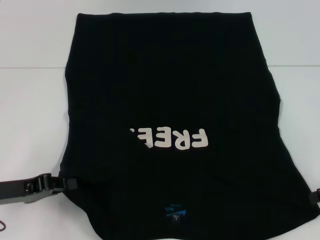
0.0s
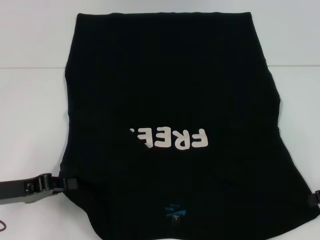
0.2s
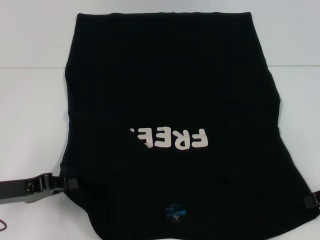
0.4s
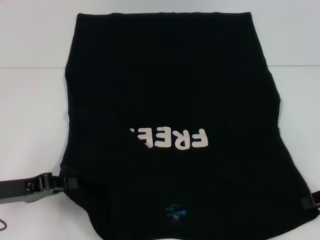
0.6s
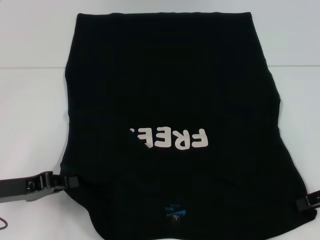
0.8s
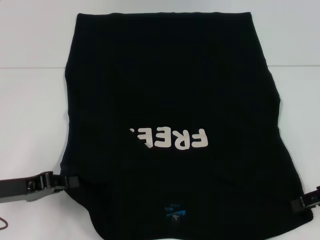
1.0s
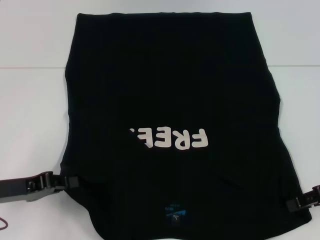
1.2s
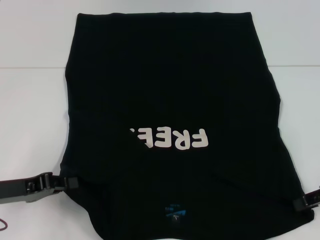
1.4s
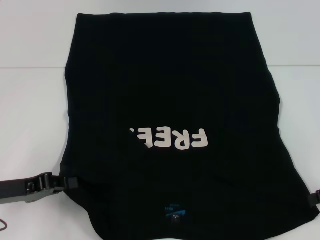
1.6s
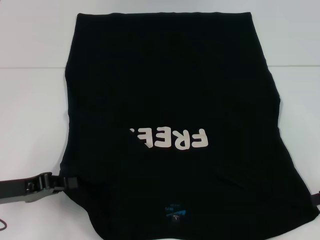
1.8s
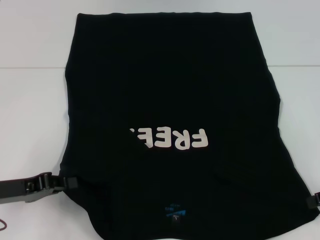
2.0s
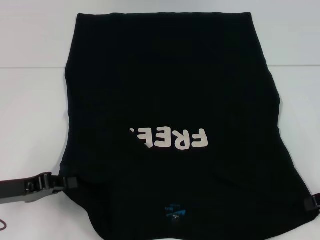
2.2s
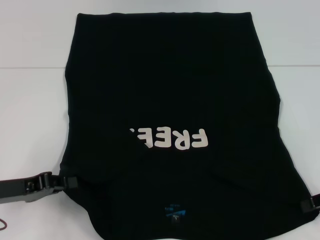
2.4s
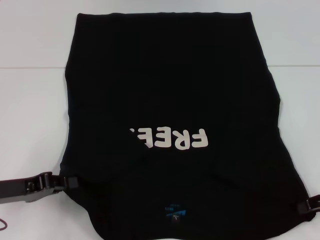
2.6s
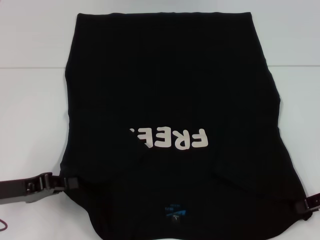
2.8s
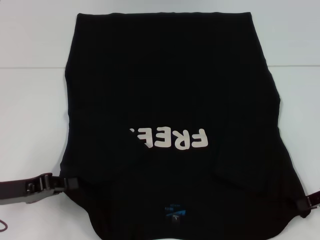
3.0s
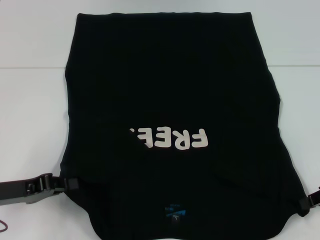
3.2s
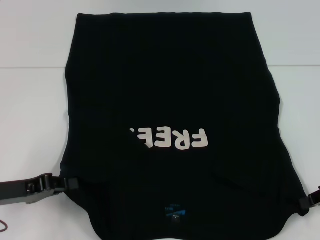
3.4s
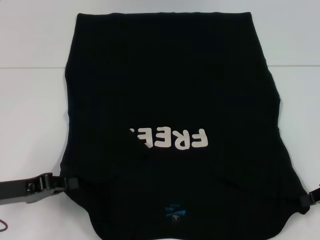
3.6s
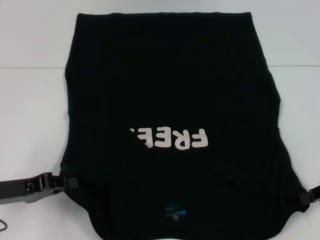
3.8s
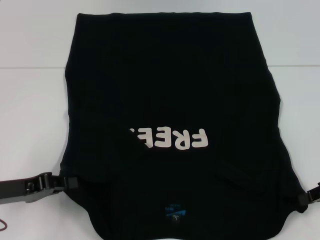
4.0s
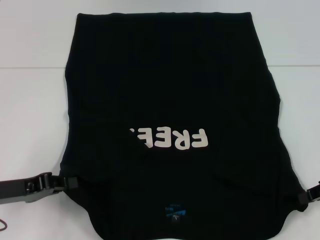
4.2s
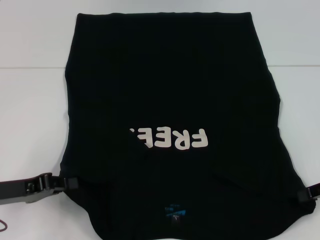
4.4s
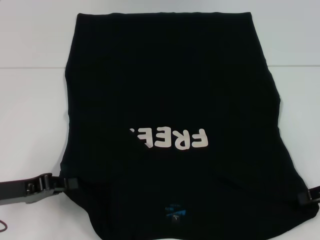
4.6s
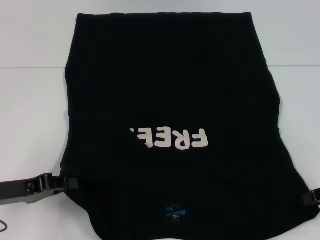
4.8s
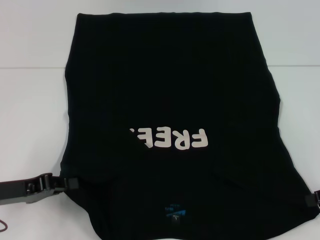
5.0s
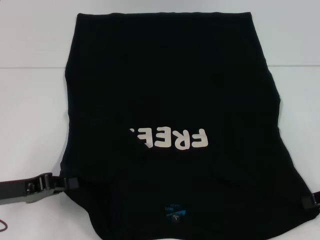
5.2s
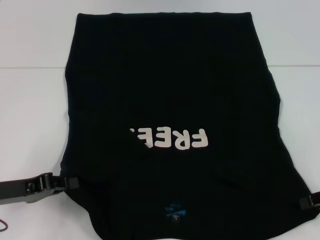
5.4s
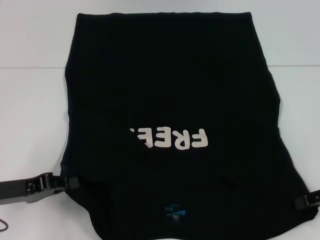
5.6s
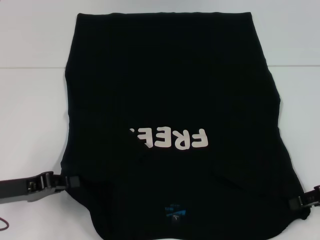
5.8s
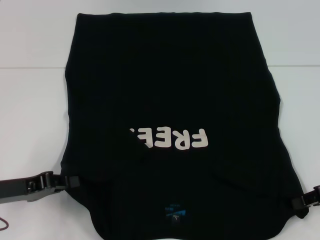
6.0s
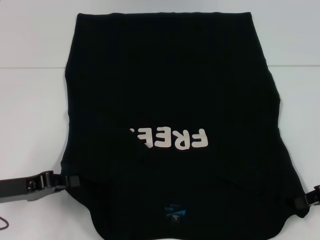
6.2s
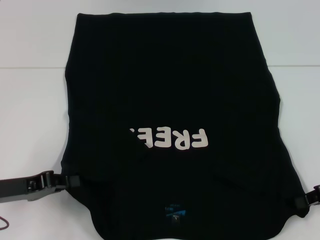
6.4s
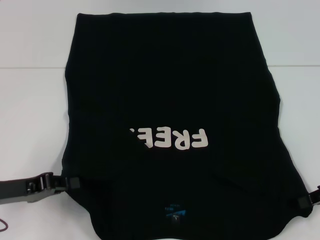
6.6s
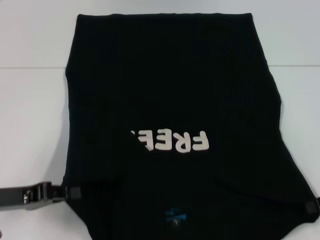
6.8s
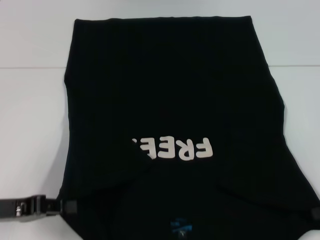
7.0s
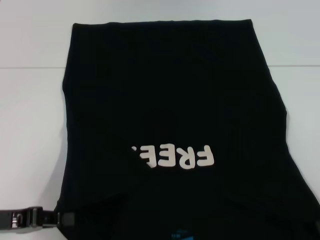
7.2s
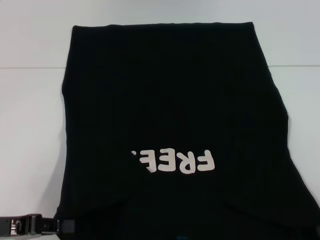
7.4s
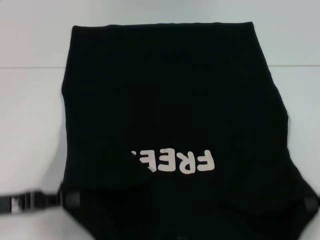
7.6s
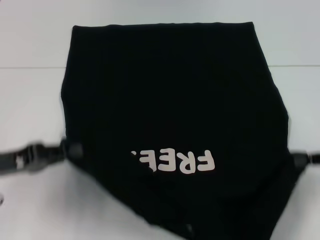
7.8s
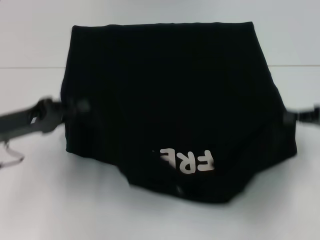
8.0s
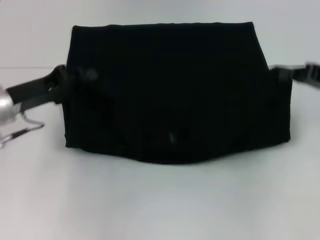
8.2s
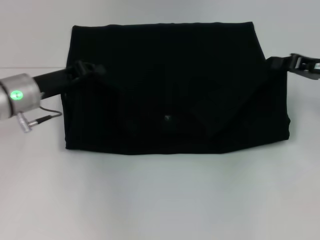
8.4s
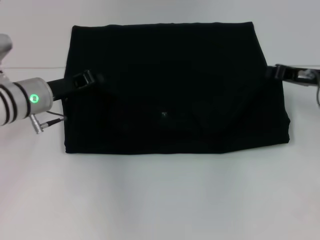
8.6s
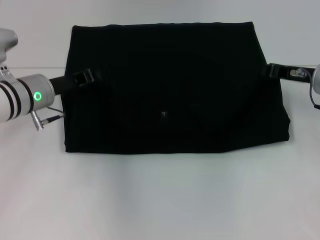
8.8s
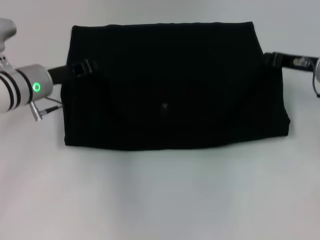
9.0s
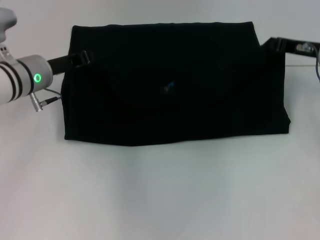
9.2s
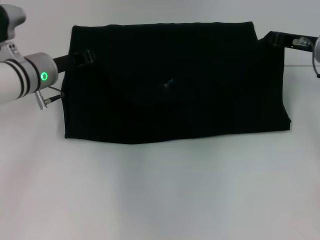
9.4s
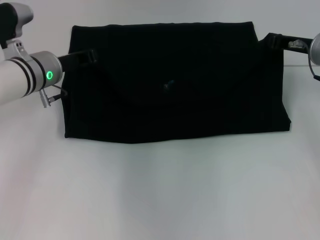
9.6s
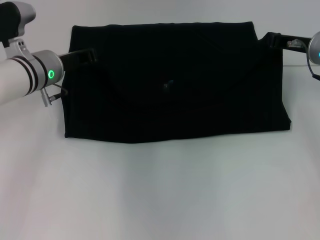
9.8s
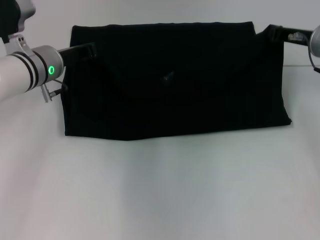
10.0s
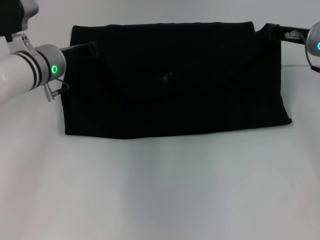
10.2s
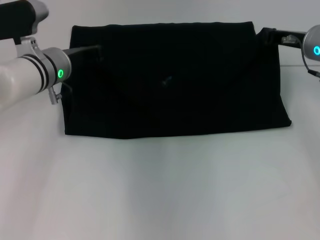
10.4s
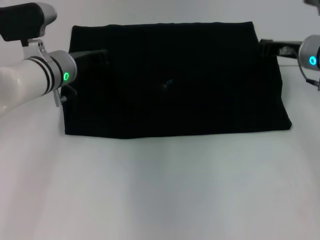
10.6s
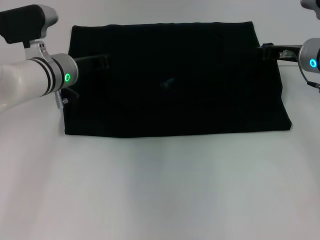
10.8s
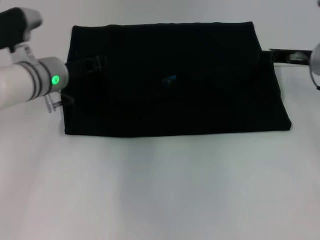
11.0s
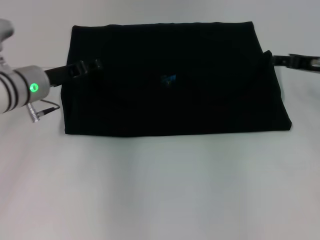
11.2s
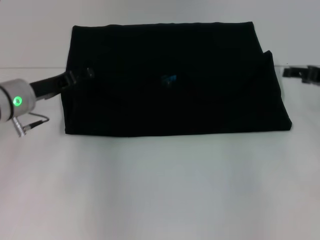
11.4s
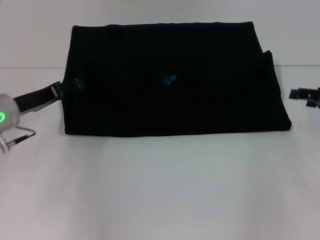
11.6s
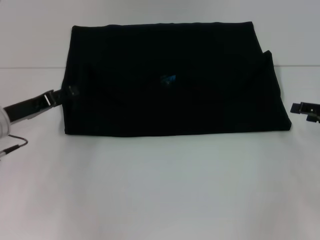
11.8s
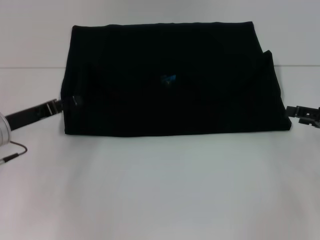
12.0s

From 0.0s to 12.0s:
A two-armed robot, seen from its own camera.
Step, from 0.0s to 3.4s: Grab the bottom right corner with your right hand.
Step, from 3.6s to 11.0s: Fold the clothes with your left hand.
Step, from 3.6s to 11.0s: Fold the clothes with your right hand.
From 1.6s to 3.0s: The grippers move only a little.
From 3.0s to 4.4s: Neither gripper changes place.
From 4.4s to 6.0s: The grippers move only a little.
From 6.0s to 7.6s: The right gripper closes.
From 7.6s to 9.0s: The left gripper is displaced forward and to the right by some 20 cm; the right gripper is displaced forward and to the left by about 20 cm.
From 9.0s to 10.4s: The grippers make only small movements.
From 10.4s to 12.0s: The right gripper shifts roughly 15 cm backward and to the right, and opens. Meanwhile the left gripper moves backward and to the left, about 15 cm, and opens its fingers.

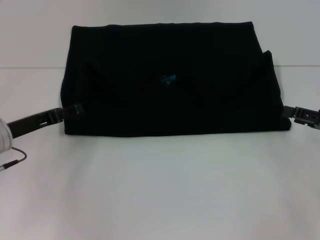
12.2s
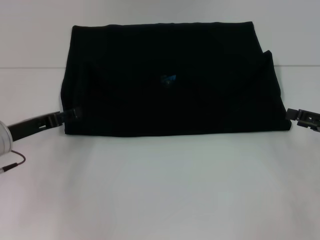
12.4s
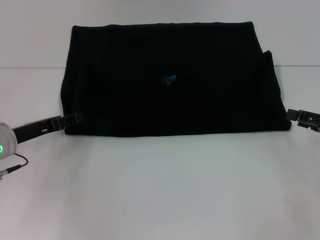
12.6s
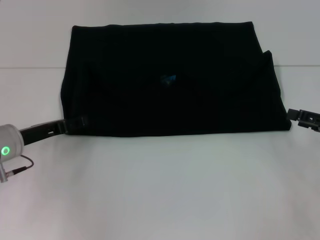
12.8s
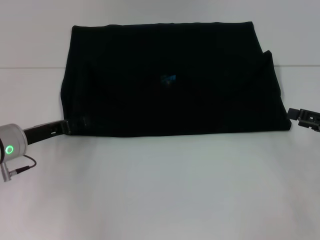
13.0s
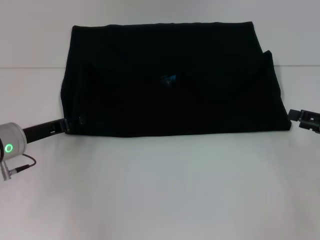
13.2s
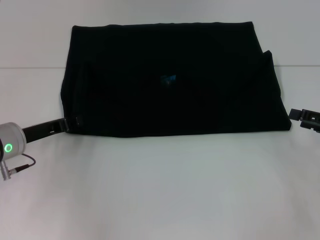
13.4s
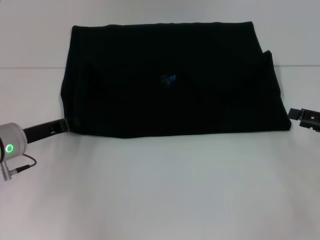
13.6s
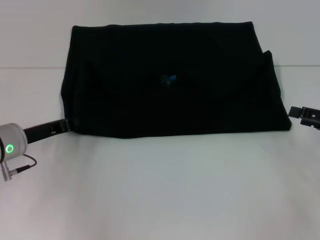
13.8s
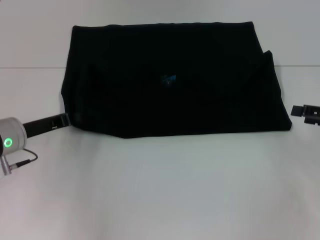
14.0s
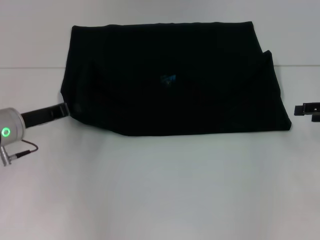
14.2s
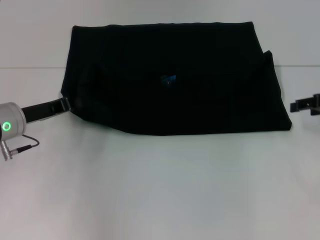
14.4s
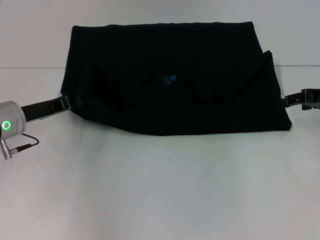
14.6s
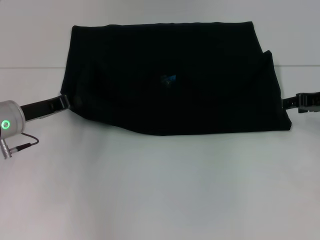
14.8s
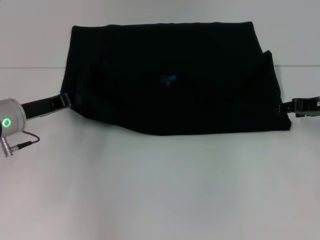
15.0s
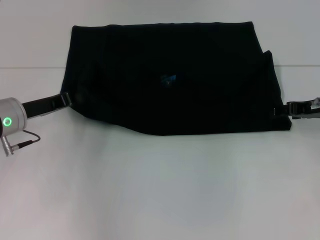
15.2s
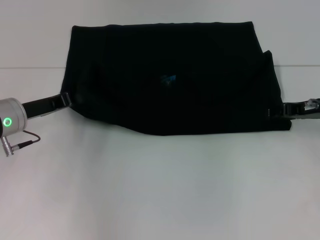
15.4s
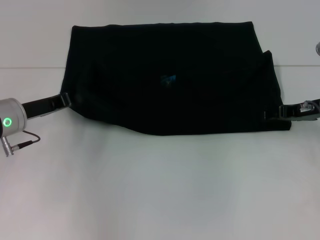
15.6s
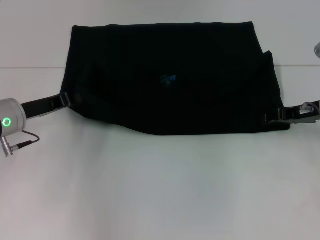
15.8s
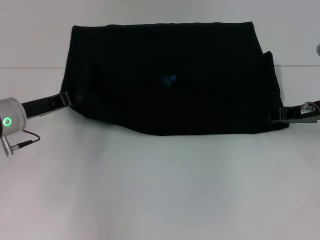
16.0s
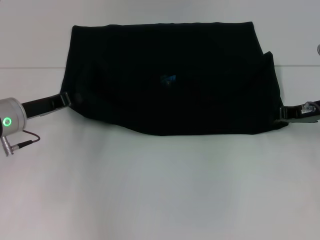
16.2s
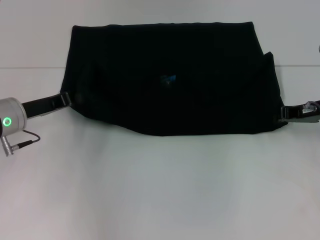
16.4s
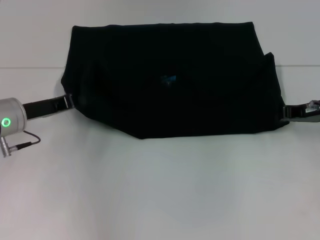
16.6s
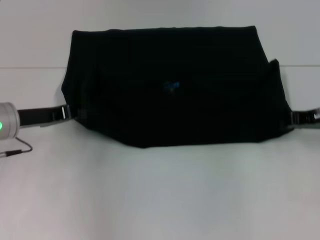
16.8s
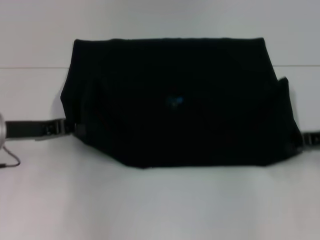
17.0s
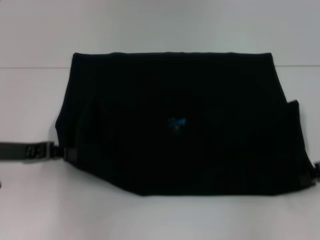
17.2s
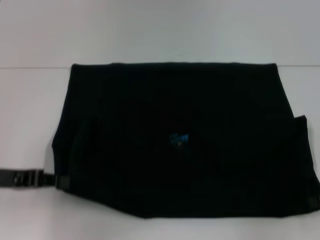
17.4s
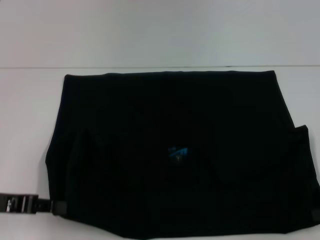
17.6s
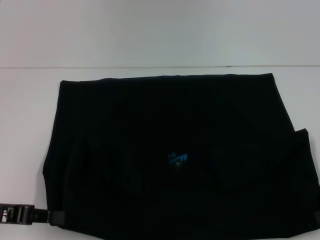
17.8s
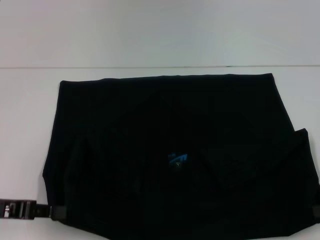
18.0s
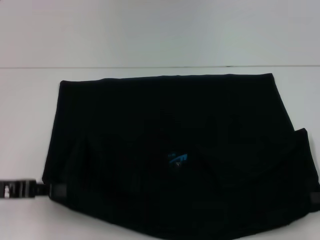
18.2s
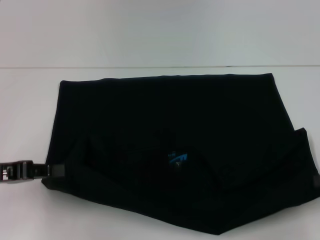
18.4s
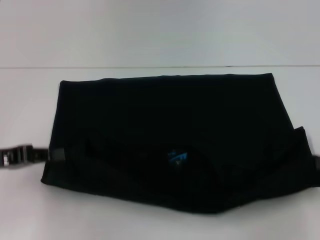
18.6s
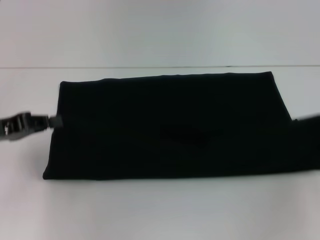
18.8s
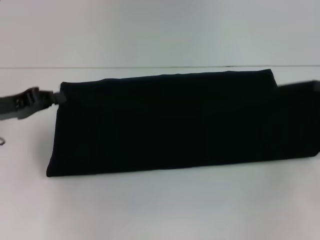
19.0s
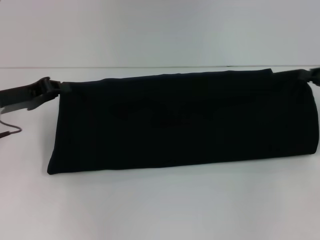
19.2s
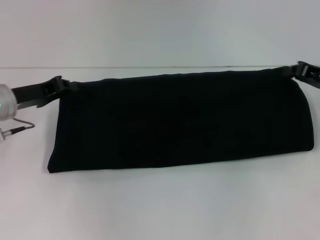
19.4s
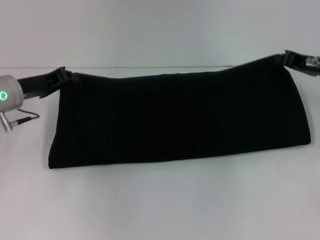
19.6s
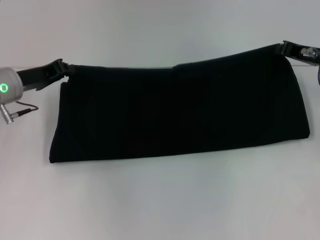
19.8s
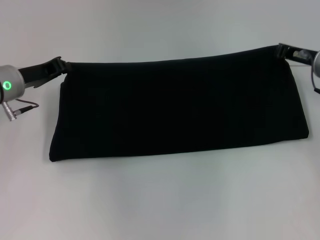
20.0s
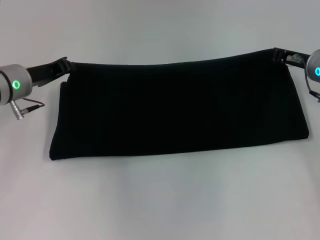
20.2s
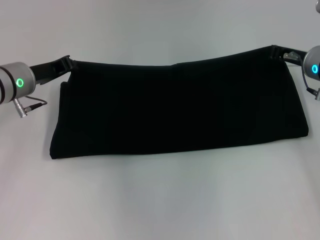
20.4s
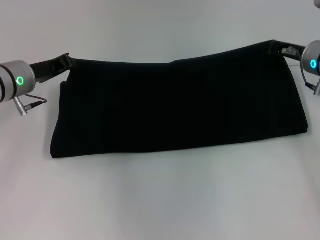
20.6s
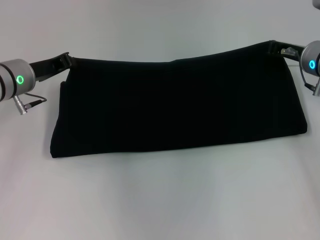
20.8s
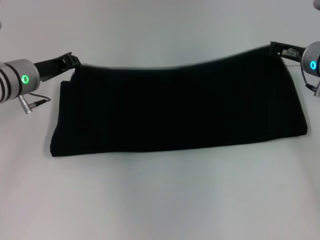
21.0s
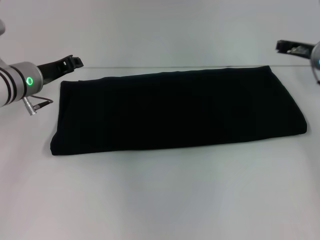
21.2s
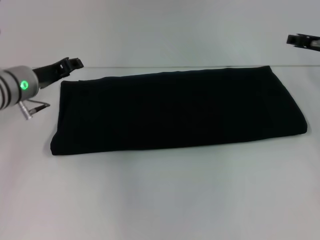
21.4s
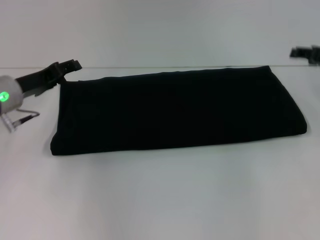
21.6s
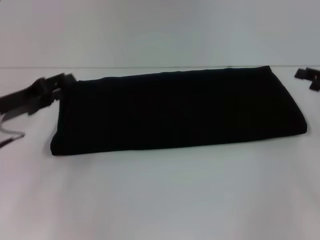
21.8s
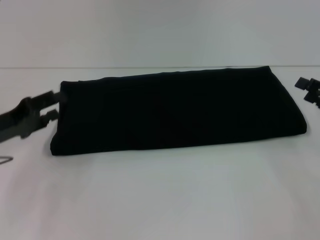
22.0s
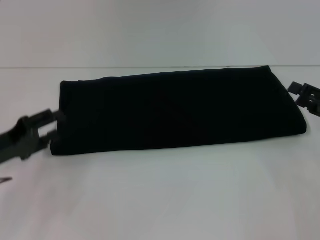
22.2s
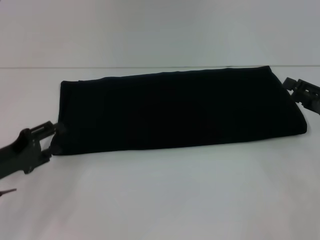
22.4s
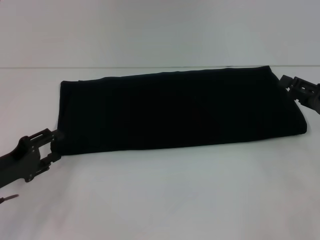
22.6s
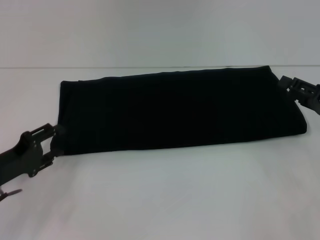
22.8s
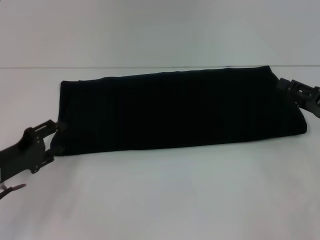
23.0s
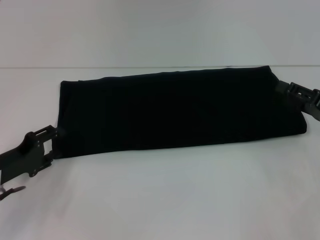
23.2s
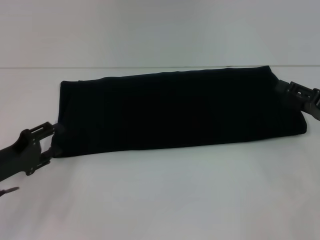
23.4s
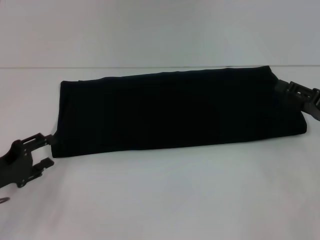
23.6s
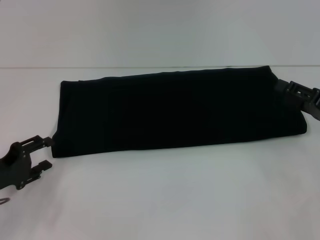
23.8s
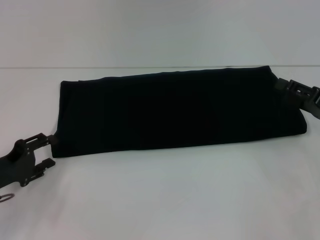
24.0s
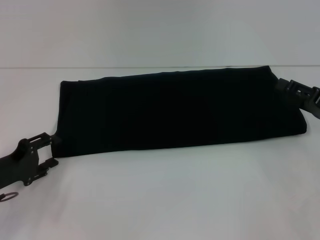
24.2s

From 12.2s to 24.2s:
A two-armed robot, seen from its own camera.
Step, from 12.2s to 17.8s: Pull the clothes with your left hand.
Step, from 12.2s to 17.8s: Pull the clothes with your right hand.
Step, from 18.0s to 21.4s: Fold the clothes with your right hand.
From 12.2s to 13.8s: The left gripper closes.
From 13.8s to 15.2s: The right gripper travels forward and to the left by approximately 10 cm.
From 15.2s to 16.6s: The right gripper closes its fingers.
From 16.6s to 18.2s: The right gripper shifts about 15 cm backward and to the right, while the left gripper moves backward and to the left, about 10 cm.
From 18.2s to 19.8s: The right gripper is displaced forward and to the left by about 20 cm. Meanwhile the left gripper goes about 15 cm forward.
From 19.8s to 21.2s: The grippers stay close to where they were, moving slightly.
From 21.2s to 22.6s: The right gripper is displaced backward and to the right by approximately 15 cm, and opens, while the left gripper goes about 20 cm backward, downward and to the left, and opens up.
From 22.6s to 24.2s: There are only small adjustments of the grippers.
